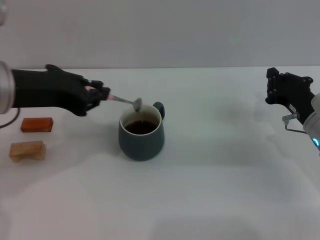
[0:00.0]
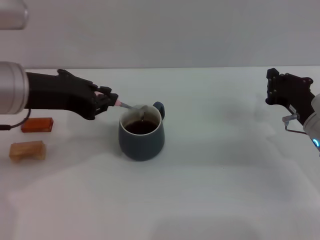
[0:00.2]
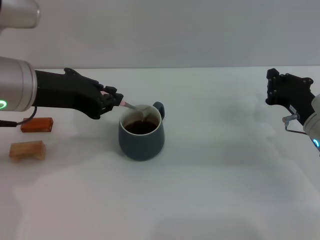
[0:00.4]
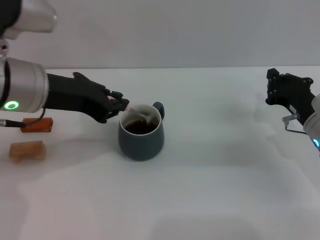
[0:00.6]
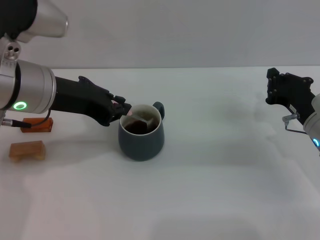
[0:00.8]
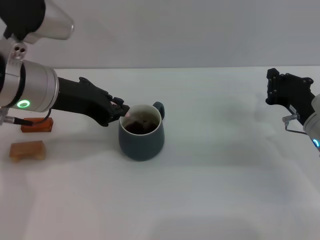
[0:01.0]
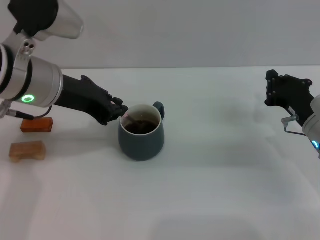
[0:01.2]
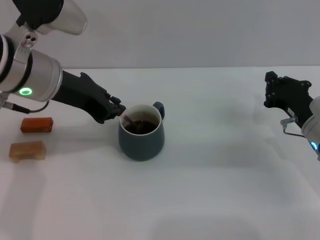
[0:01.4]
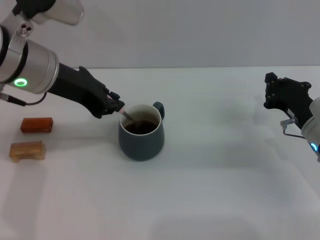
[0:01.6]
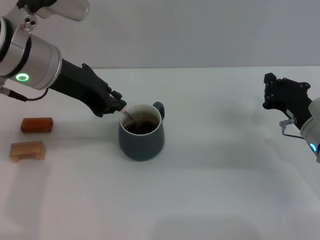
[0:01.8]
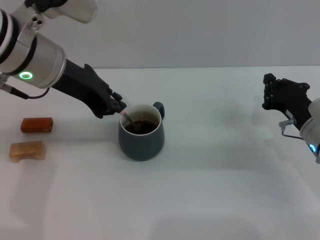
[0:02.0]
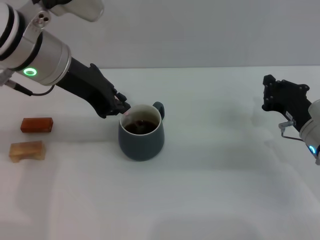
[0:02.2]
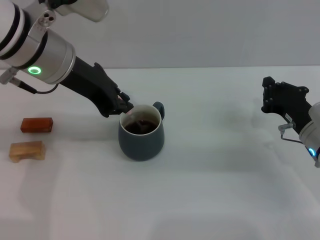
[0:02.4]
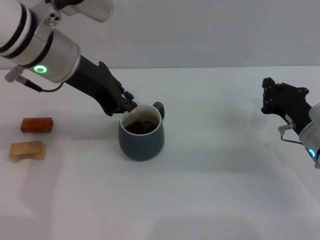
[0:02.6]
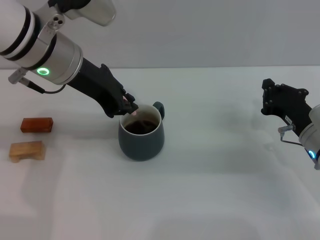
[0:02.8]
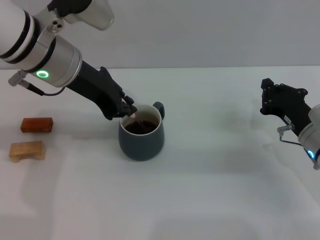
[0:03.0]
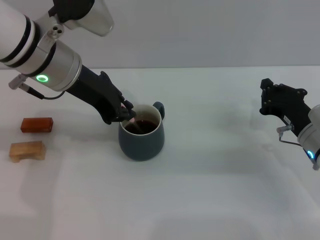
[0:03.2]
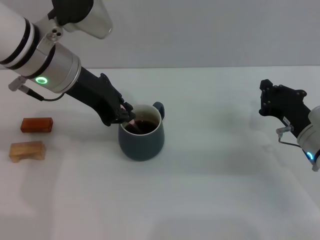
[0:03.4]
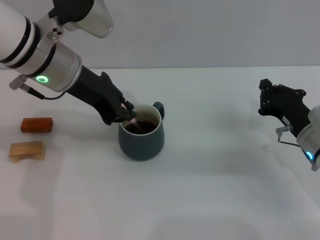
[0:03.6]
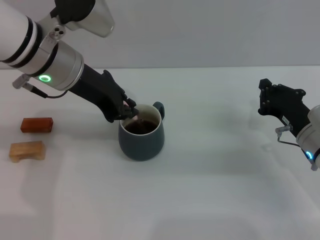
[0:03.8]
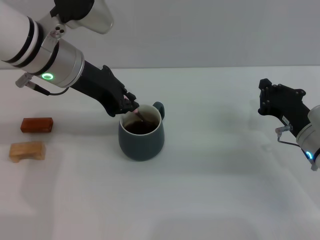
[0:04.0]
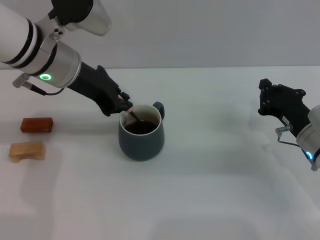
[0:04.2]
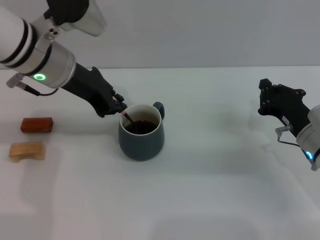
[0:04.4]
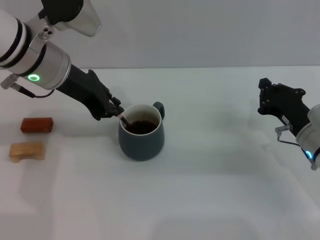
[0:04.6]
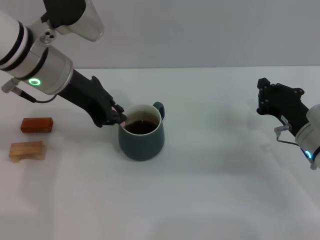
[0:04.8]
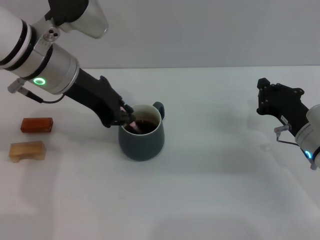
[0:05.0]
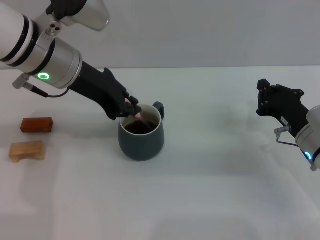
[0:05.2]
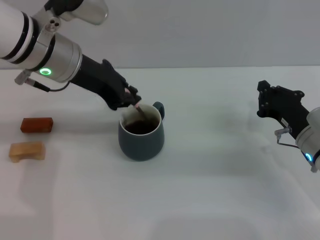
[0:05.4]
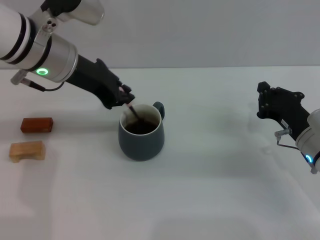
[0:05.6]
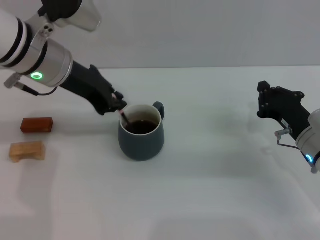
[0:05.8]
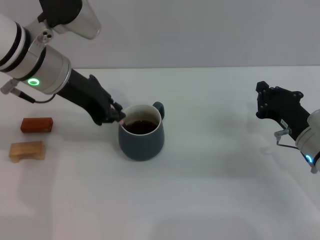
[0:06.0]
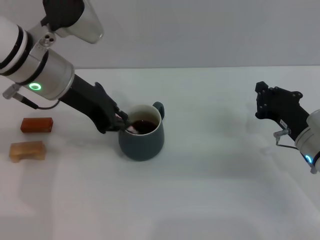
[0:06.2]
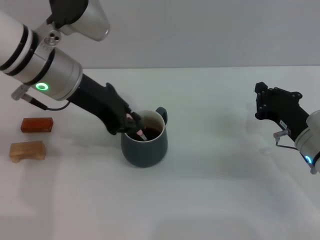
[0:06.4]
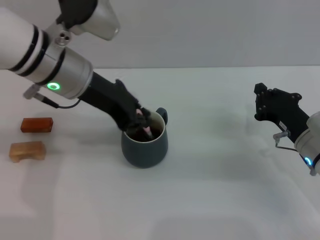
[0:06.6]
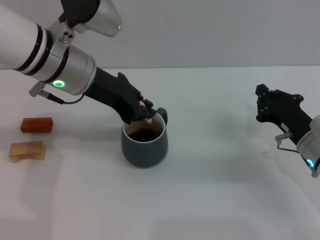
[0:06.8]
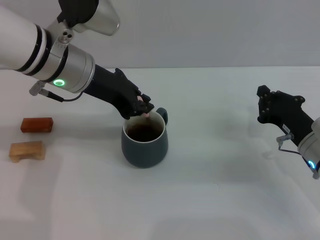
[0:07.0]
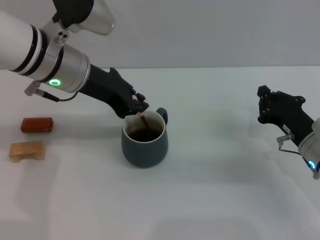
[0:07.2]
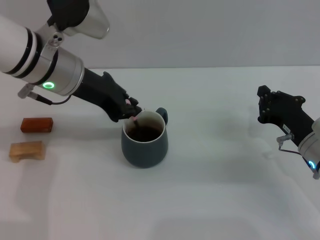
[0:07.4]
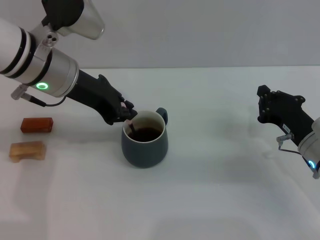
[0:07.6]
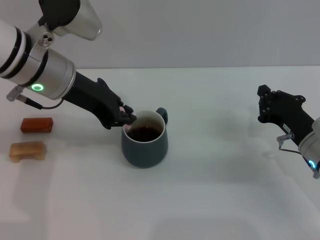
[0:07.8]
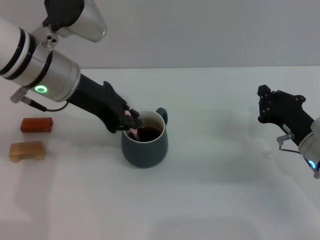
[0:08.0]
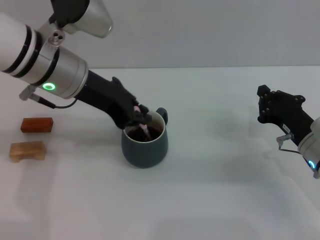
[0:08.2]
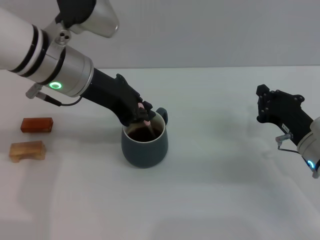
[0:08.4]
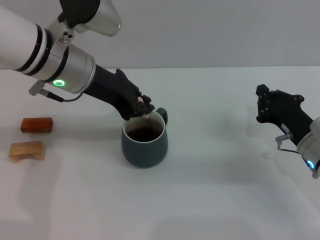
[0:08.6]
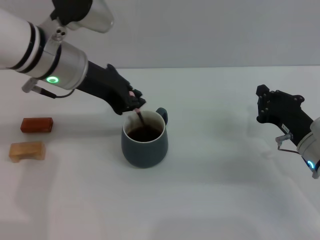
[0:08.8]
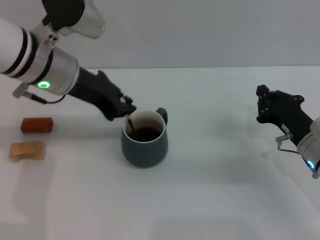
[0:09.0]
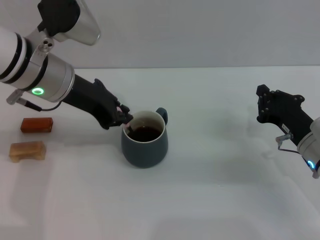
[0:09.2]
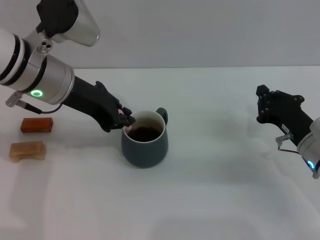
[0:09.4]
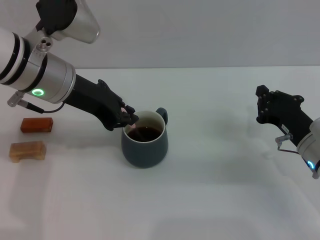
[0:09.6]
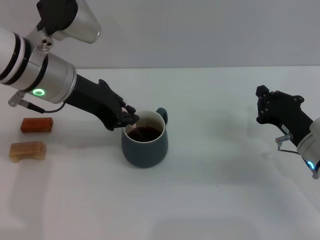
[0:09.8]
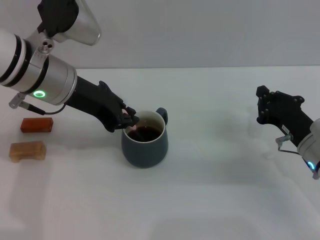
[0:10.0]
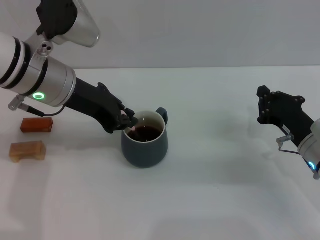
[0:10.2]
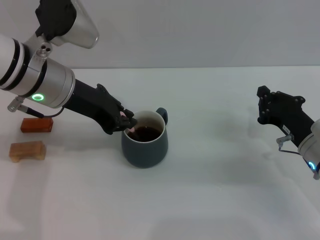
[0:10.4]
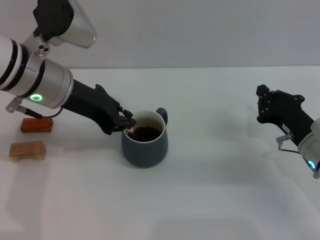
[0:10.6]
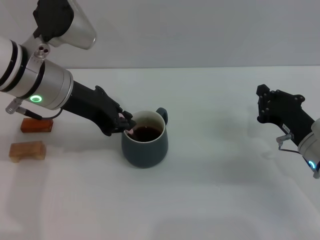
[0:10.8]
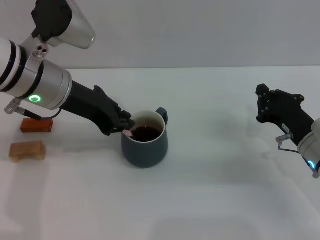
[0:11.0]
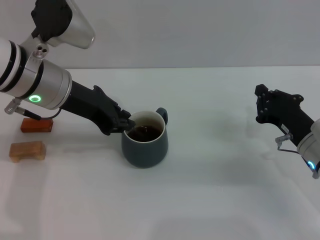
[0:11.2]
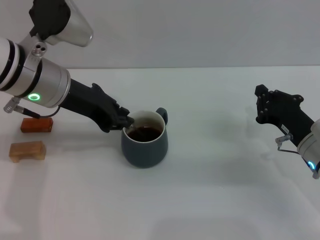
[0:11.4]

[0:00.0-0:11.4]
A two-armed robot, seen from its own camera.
Task of the whole recording: Move the grey cup to the center, lift the pink spoon, stir it three times in the cup, and put the spoon into the cup.
0:00.0 to 0:01.4: The left gripper moves forward, roughly 5 cm.
0:01.4 to 0:10.0: The grippers make only small movements.
0:10.0 to 0:11.4: Neither gripper changes place.

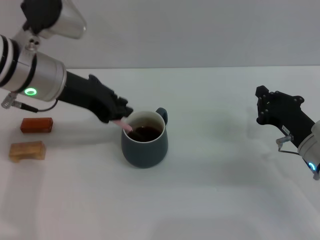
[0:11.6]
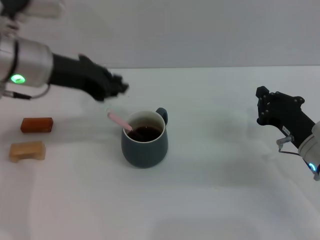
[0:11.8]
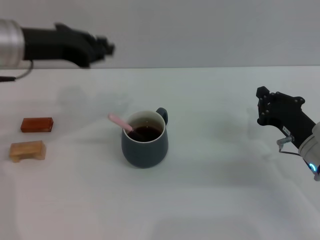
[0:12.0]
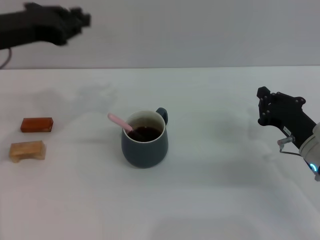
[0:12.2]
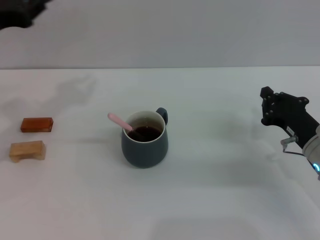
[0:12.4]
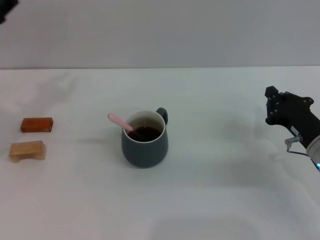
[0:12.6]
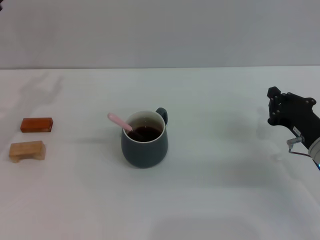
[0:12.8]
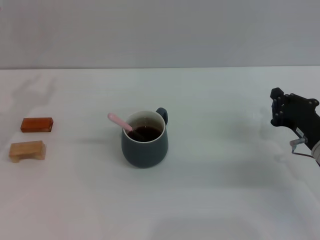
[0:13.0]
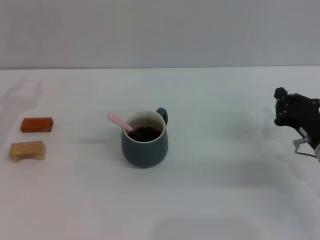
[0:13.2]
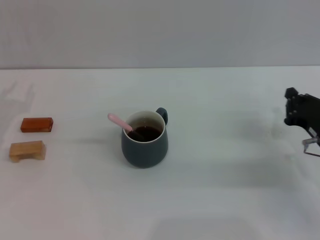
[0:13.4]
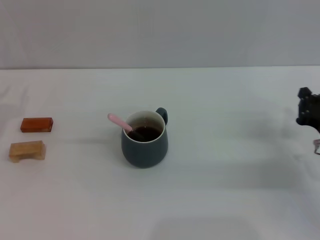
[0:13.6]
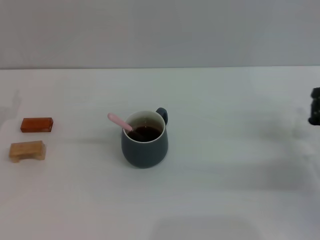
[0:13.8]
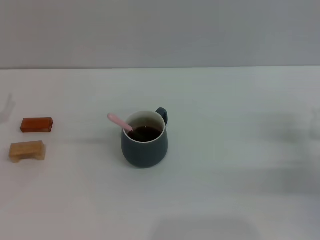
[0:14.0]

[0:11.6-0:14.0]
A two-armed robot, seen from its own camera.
Task of the whole recording: Move the grey cup to the center, lift the pink spoon, stir it three times in the cup, and put the spoon into the cup.
0:11.6 to 0:12.8: The left gripper is displaced to the left by roughly 15 cm.
0:12.8 to 0:14.0: The right gripper travels to the right by about 5 cm.

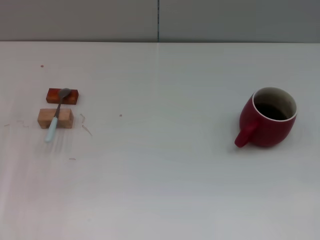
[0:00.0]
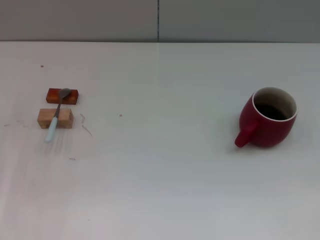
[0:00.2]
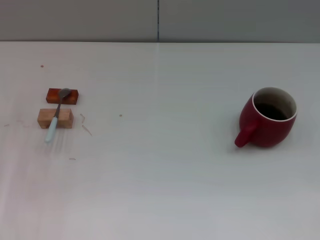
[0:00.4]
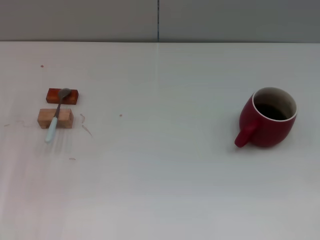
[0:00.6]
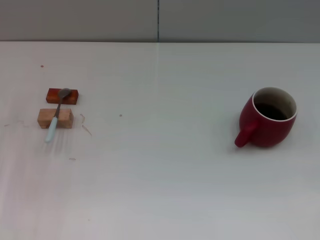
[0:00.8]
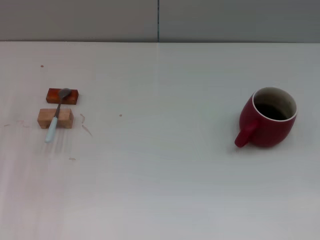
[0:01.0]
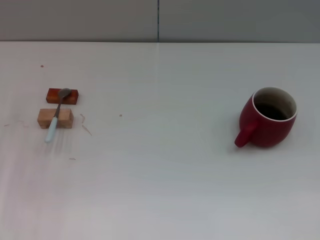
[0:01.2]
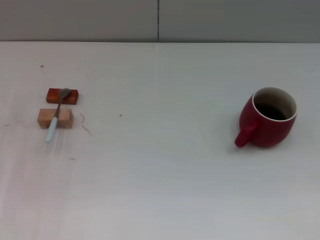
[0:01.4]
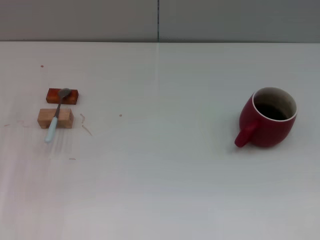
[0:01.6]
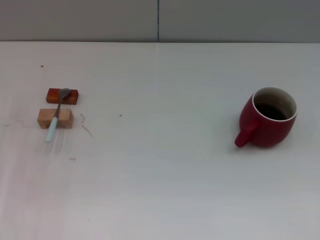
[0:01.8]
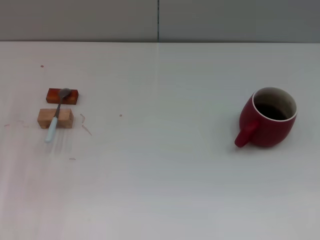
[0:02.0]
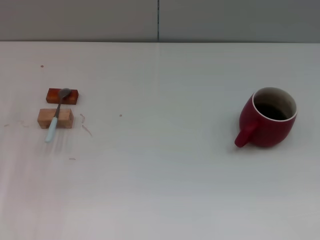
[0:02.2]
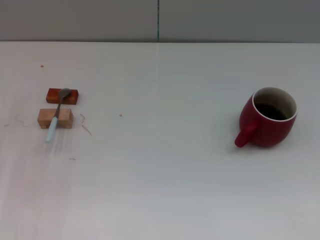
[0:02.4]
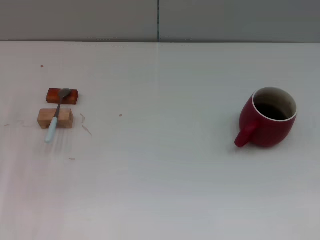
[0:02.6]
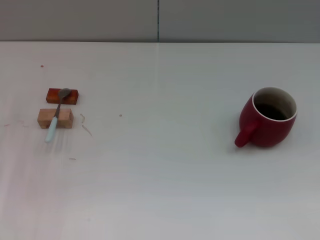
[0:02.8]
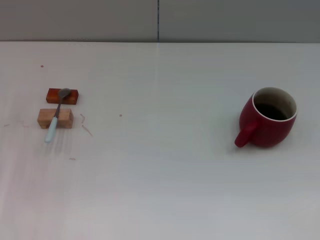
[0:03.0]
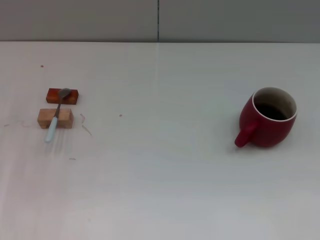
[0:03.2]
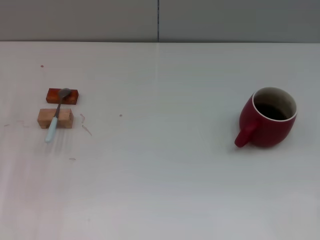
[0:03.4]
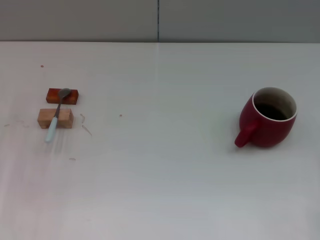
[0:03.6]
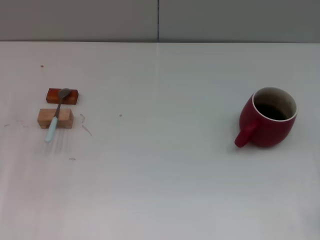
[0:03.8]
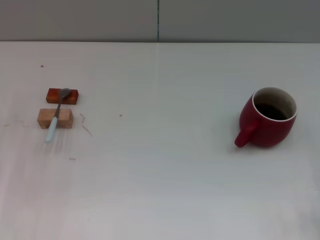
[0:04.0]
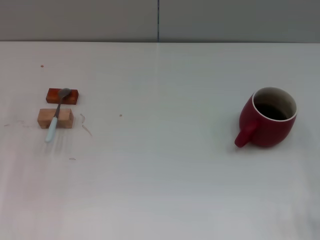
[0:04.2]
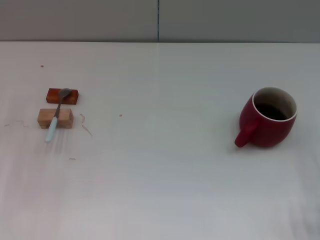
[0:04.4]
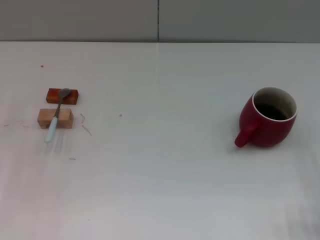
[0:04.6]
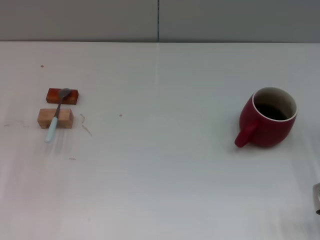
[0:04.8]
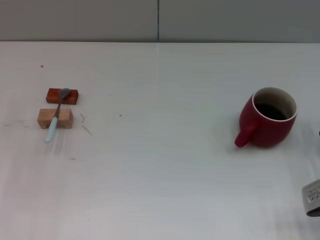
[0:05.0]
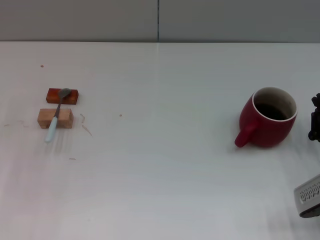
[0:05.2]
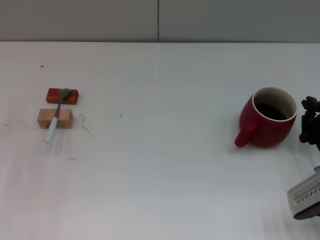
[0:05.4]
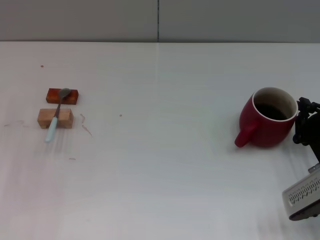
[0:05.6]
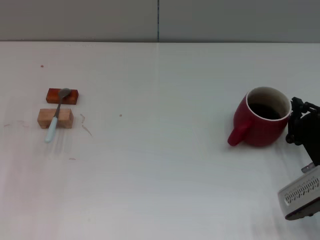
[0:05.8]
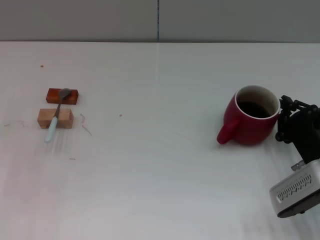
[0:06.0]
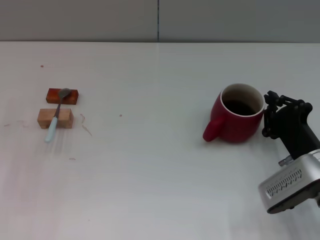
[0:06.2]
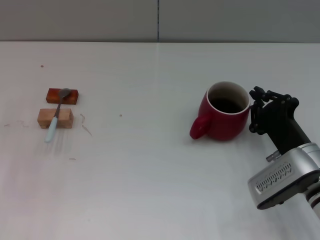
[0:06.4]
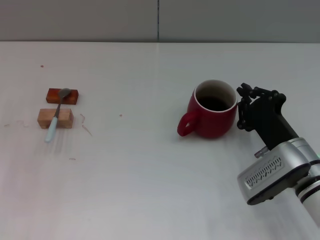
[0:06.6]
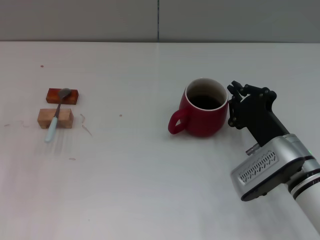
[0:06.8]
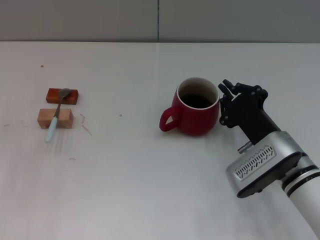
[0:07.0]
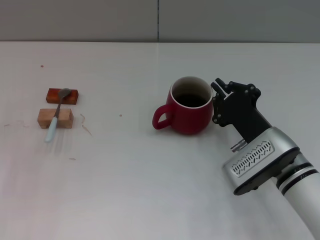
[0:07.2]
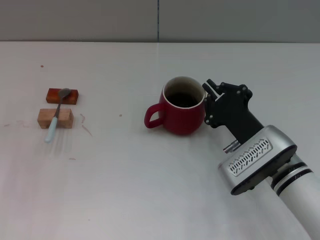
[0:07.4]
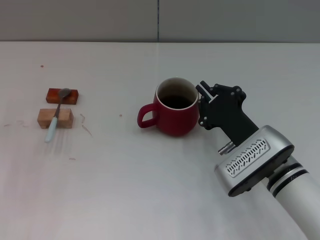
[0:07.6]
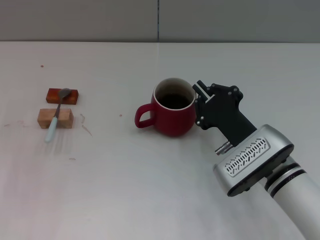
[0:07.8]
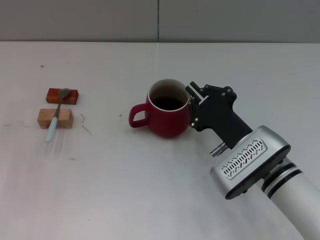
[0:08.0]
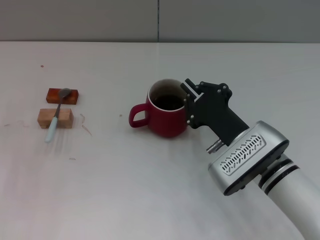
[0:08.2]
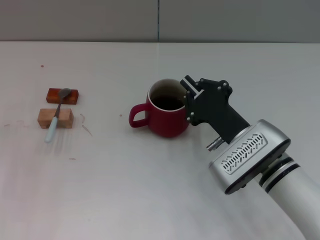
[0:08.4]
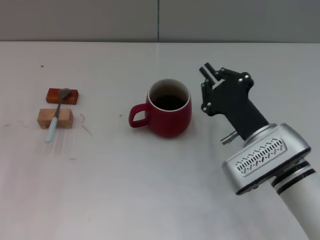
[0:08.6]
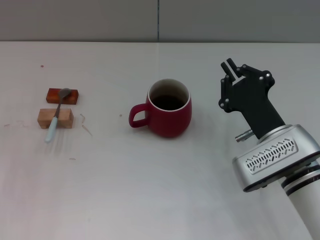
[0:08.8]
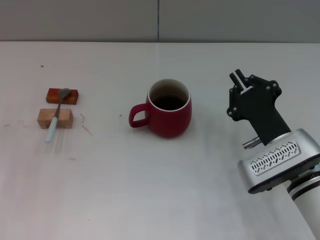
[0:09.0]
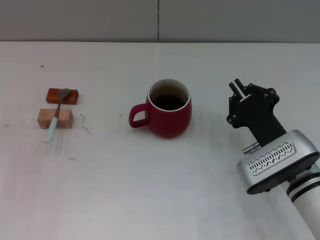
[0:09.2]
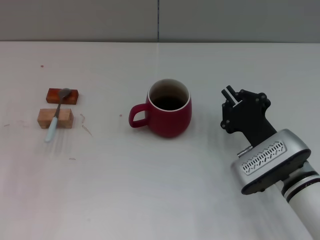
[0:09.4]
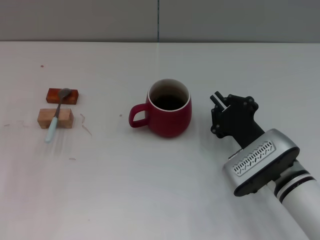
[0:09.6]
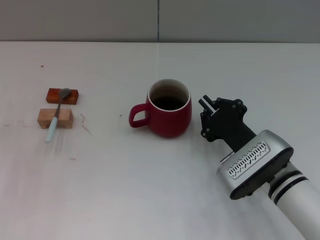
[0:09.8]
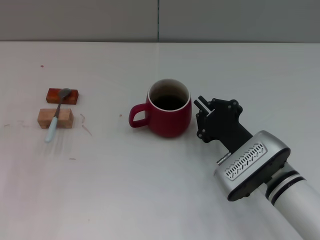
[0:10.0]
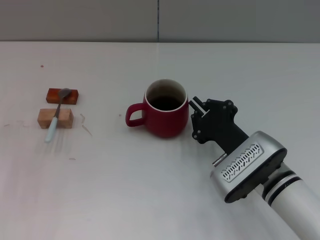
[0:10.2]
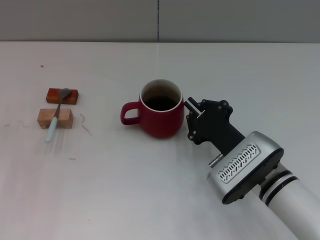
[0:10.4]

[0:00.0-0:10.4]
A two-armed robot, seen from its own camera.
Task of the whole recording: Move the red cup to the center, lift the blue spoon, stir it three times in the cup, and put the spoon into the cup.
0:04.4 to 0:06.0: The right gripper moves to the left, roughly 10 cm.
0:06.0 to 0:07.4: The right gripper heads to the left, covering approximately 10 cm.
0:07.4 to 0:10.4: The grippers stay close to where they were, moving slightly.
